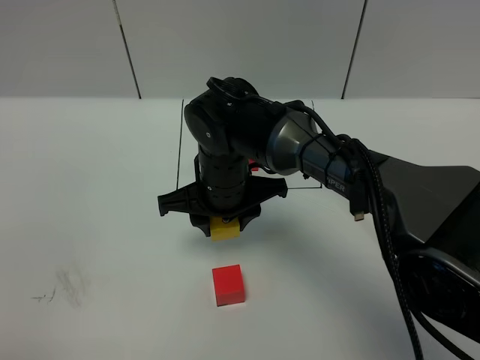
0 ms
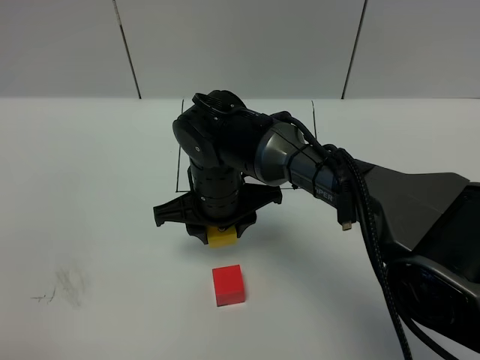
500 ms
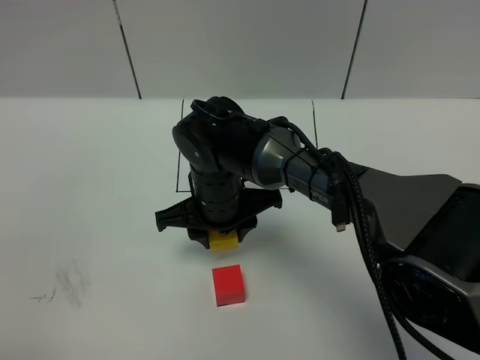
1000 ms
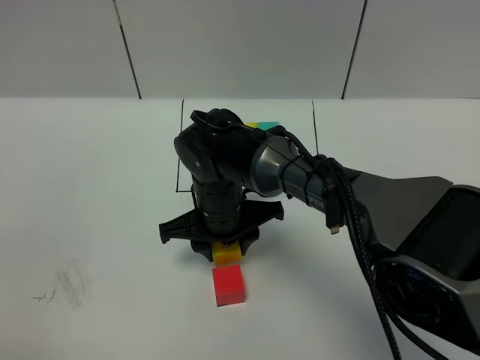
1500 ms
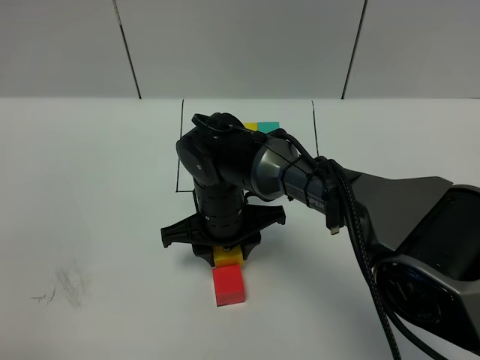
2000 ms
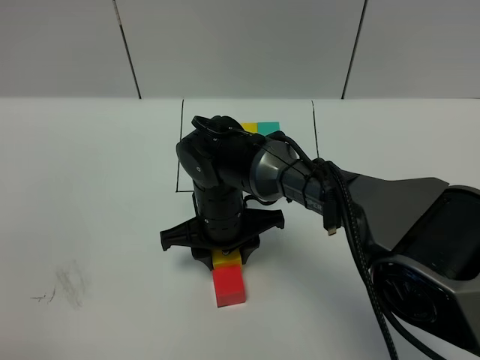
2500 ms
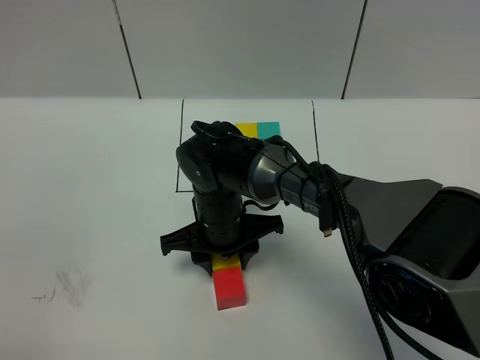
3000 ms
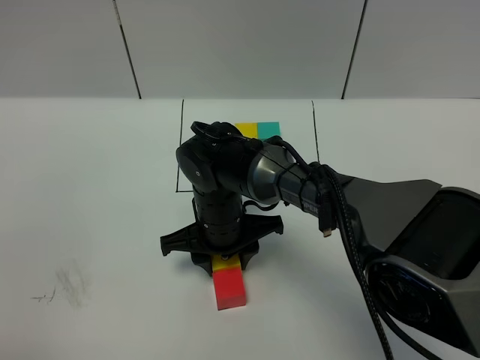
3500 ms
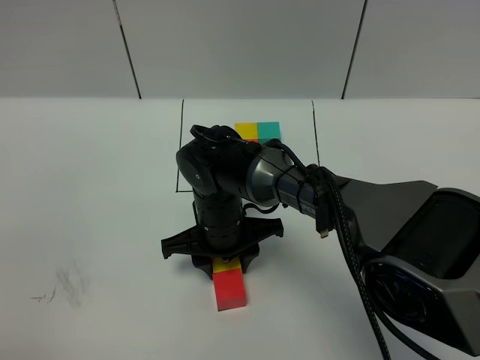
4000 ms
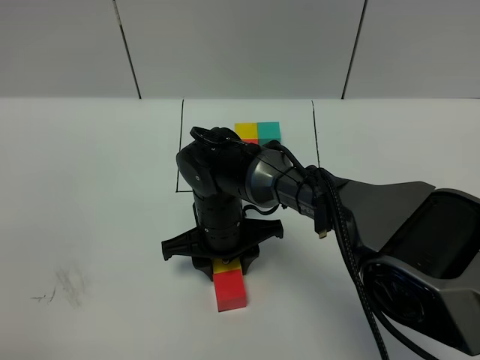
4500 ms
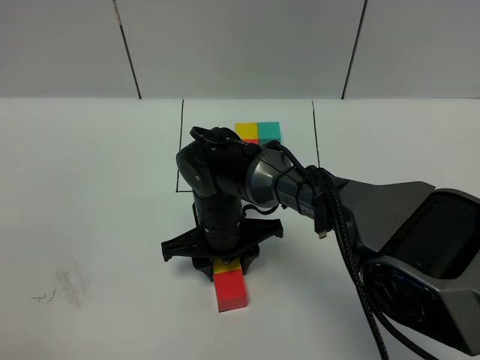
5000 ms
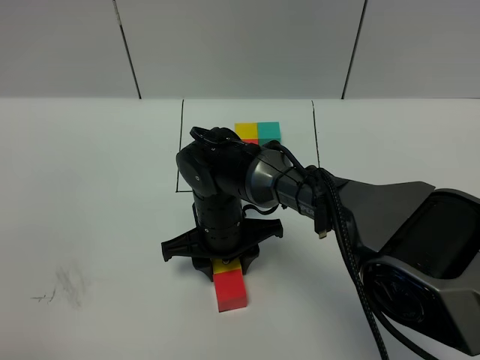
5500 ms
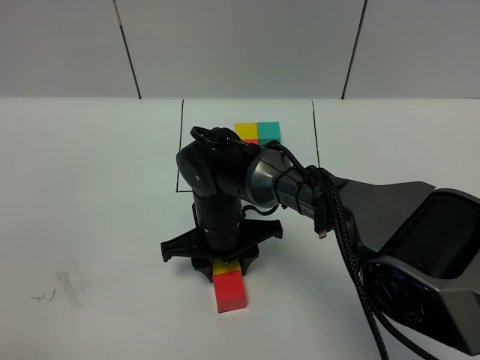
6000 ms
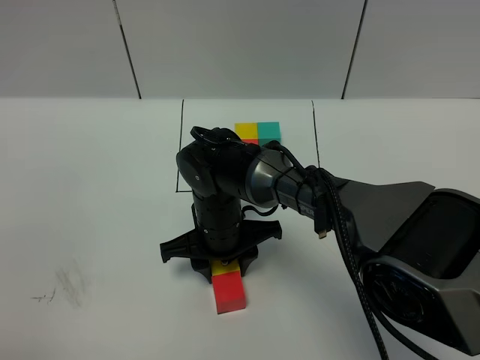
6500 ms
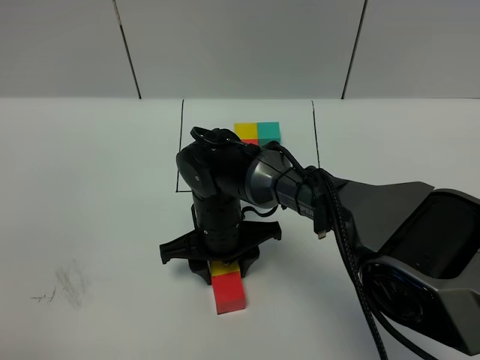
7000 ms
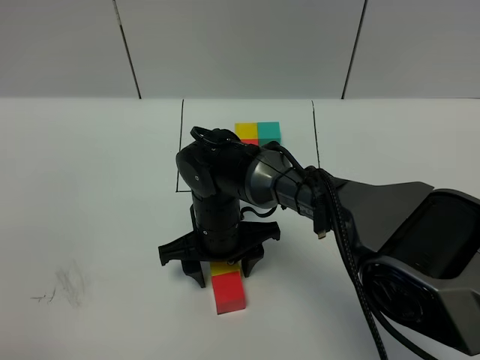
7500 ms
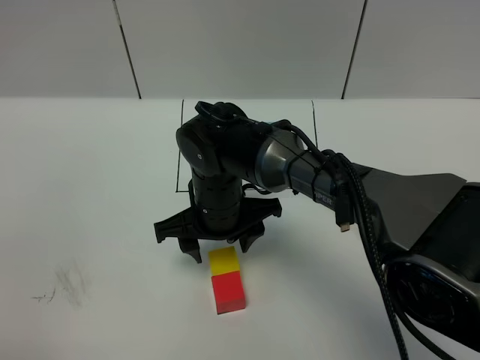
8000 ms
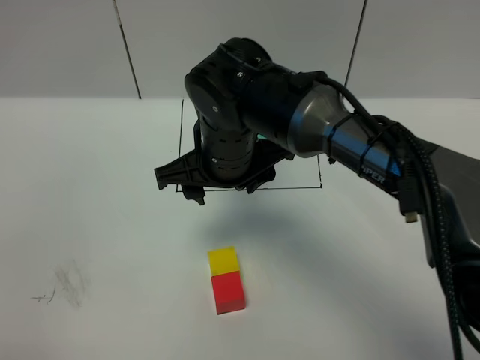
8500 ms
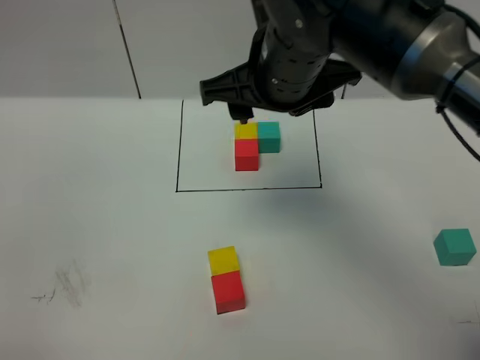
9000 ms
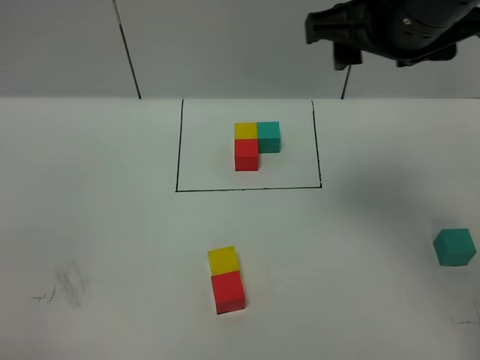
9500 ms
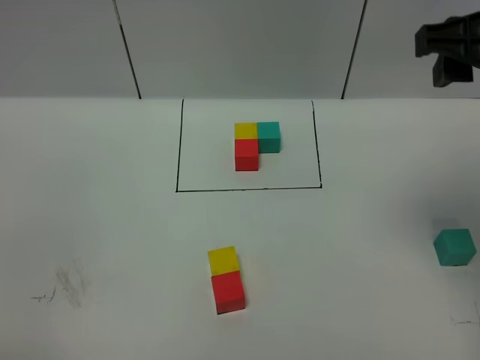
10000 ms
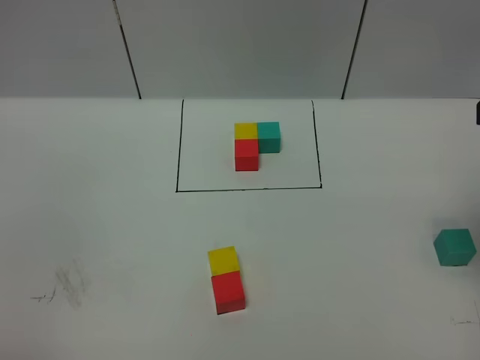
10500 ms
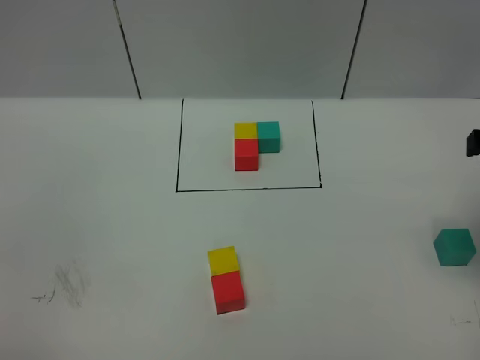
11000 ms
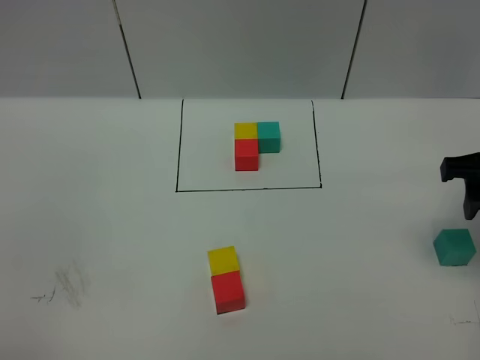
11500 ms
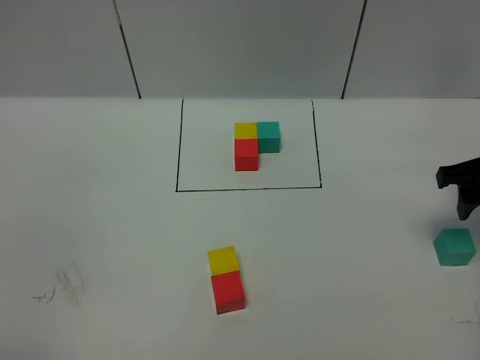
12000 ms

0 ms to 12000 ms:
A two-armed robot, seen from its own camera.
Task of the whole recording: According to the building block template in front, assemble the scattered blocks together.
Step, 0 ms to 7500 ms: Put the yellow cube on the behind of the red cube.
0 ms to 2000 ms: The grippers make only small movements.
2000 ms to 4000 ms: The grippers move only a little.
4000 ms to 6000 ms: Both grippers stay about where they are.
6000 ms to 8000 ms: The grippers stay close to where they were, moving slightly.
8000 ms to 10000 ms: The right gripper goes roughly 35 cm to the right and upward.
10000 ms to 12000 ms: The right gripper travels downward and to the right by about 20 cm.

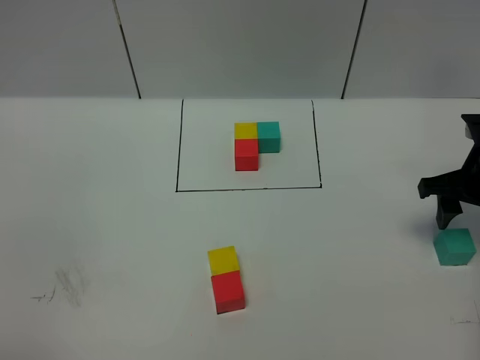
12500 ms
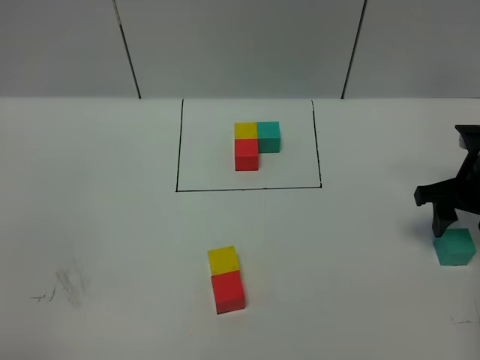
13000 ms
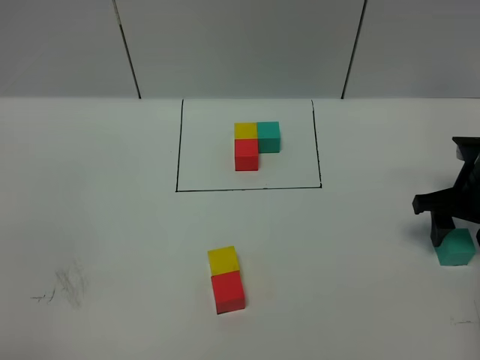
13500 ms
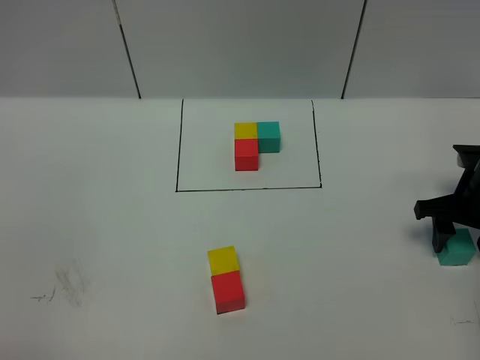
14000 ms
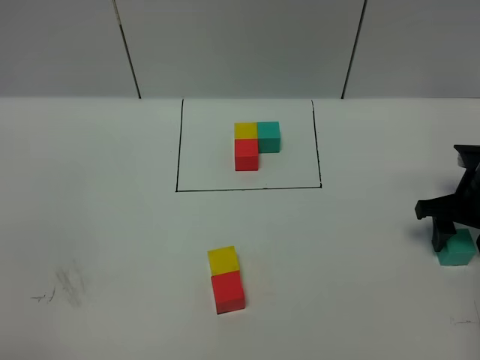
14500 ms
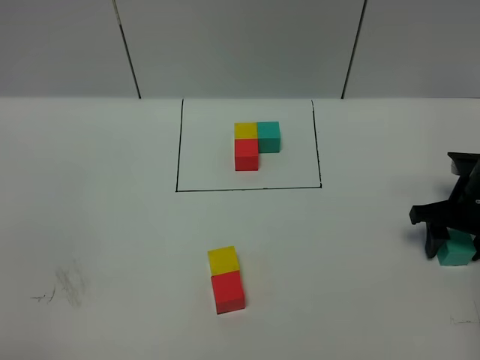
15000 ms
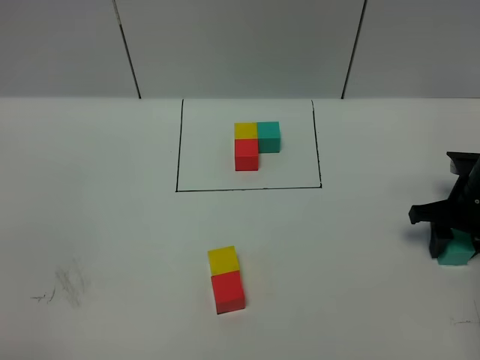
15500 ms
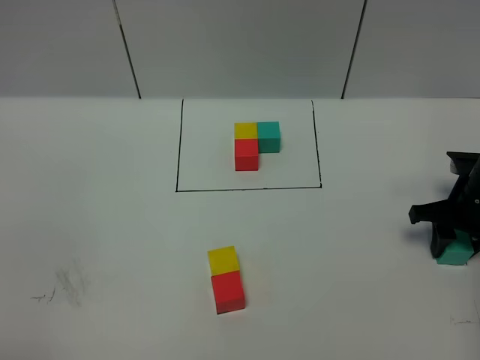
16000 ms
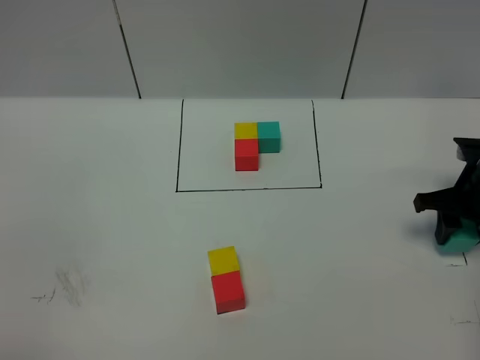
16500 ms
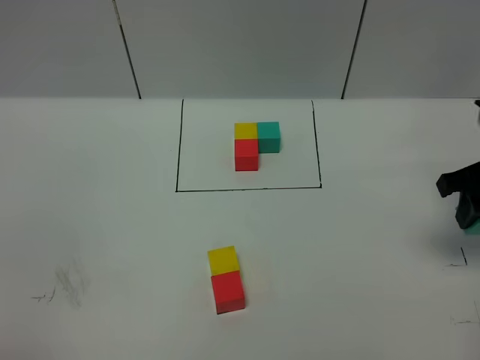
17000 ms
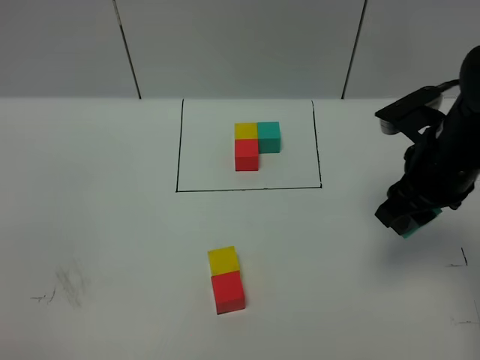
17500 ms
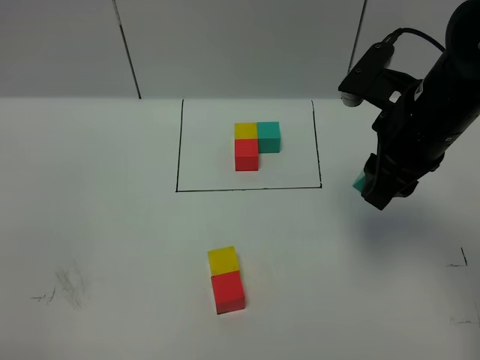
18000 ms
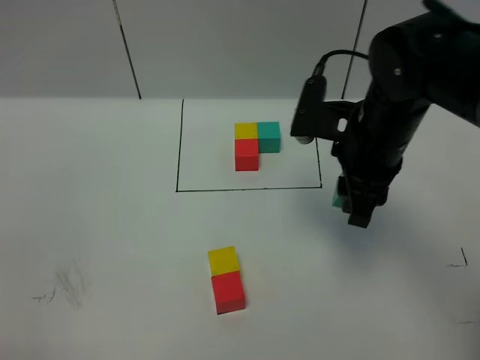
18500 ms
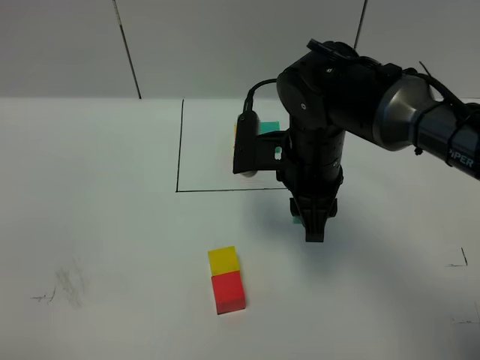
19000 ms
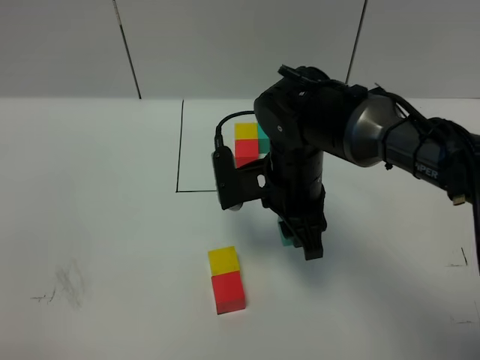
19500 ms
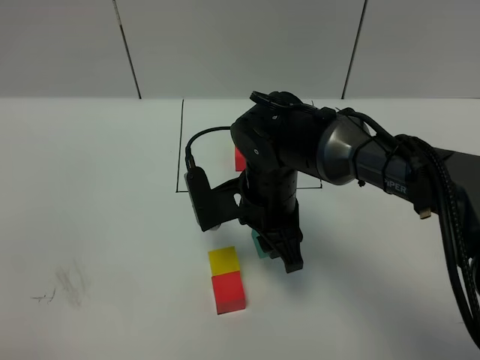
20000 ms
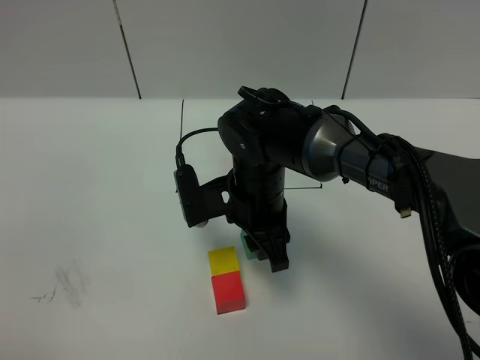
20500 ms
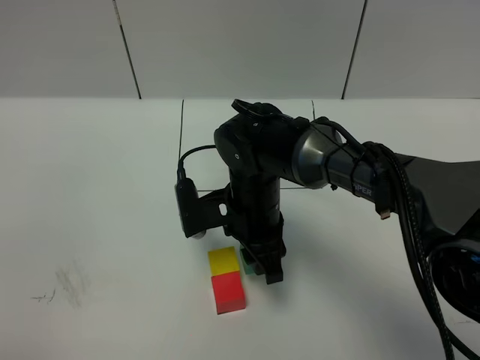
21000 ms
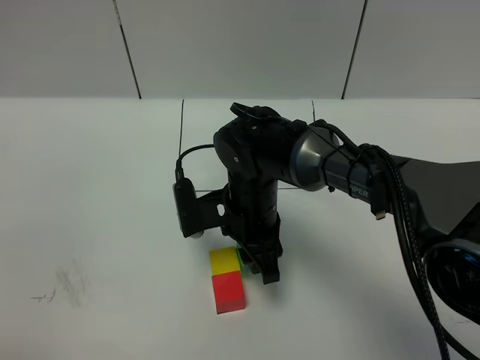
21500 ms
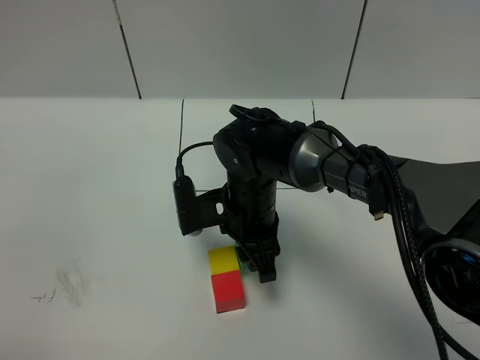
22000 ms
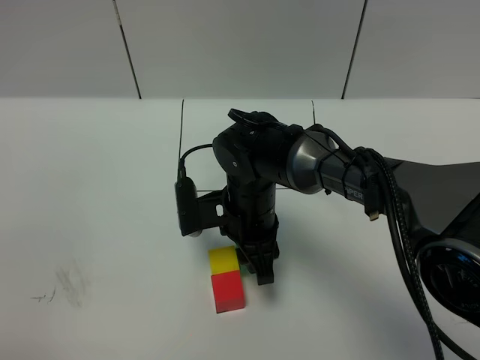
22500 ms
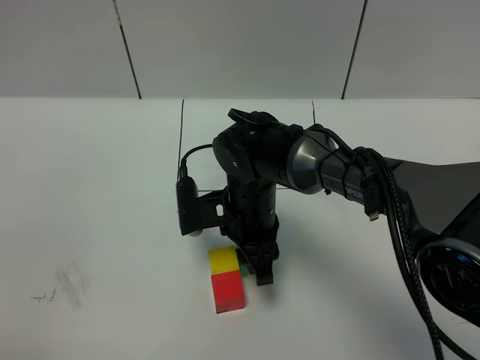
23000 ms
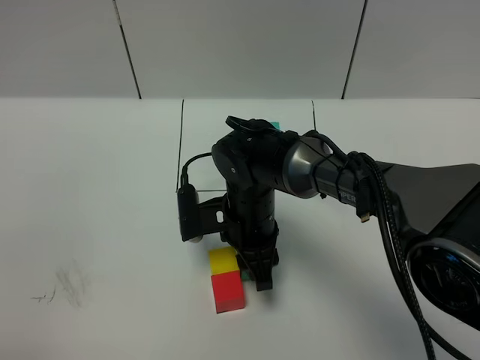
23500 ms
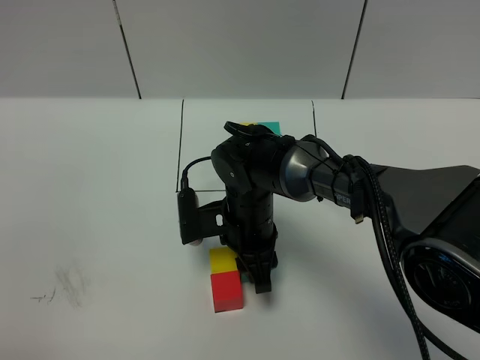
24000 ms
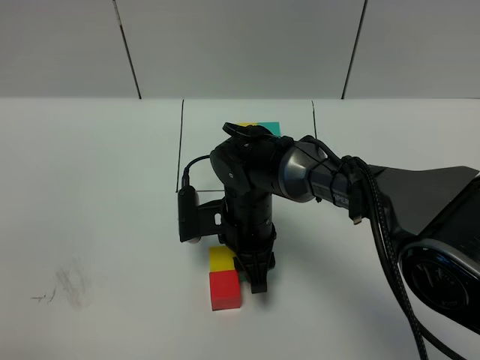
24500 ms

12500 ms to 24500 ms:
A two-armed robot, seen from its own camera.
Task of the whole recording: According to the building block template in front, assemble the scattered blocks together.
12500 ms to 14500 ms: The right gripper travels downward by about 5 cm.
14500 ms to 16500 ms: The grippers make only small movements.
16500 ms to 18500 ms: The right gripper is displaced to the left and upward by about 20 cm.
18500 ms to 20500 ms: The right gripper heads to the left and downward, covering about 15 cm.
20500 ms to 22500 ms: The grippers make only small movements.
22500 ms to 24500 ms: The grippers move only a little.

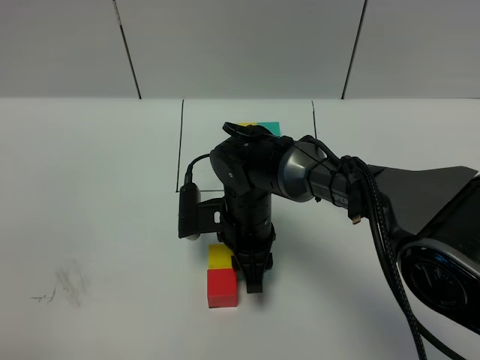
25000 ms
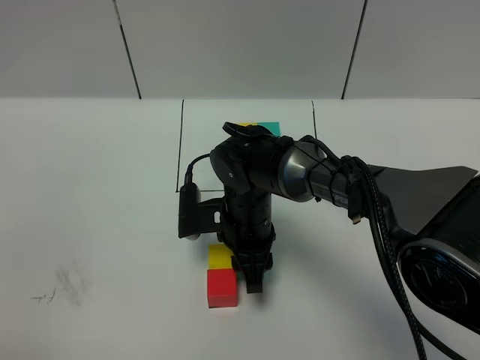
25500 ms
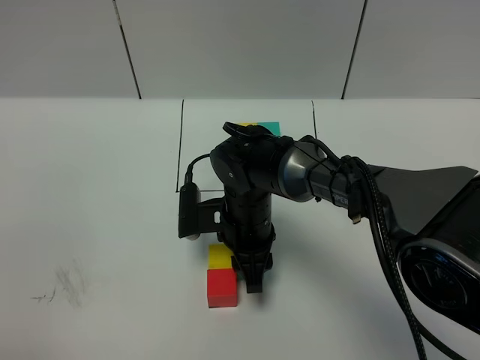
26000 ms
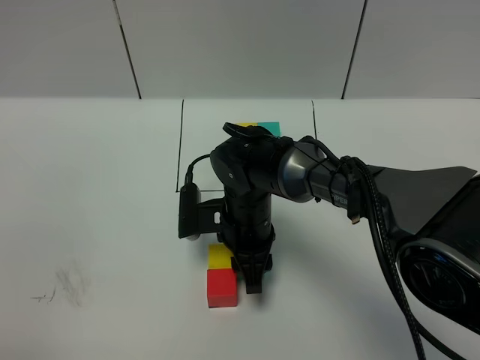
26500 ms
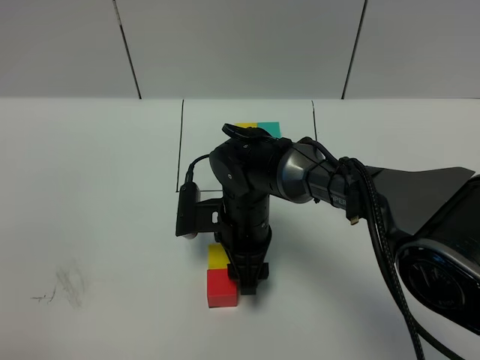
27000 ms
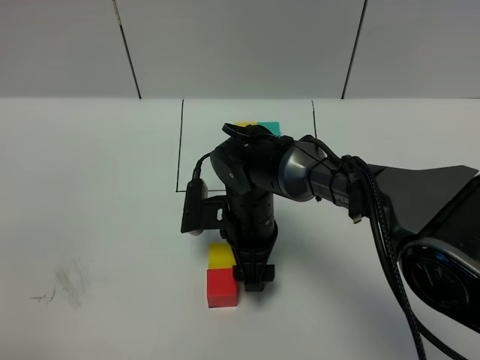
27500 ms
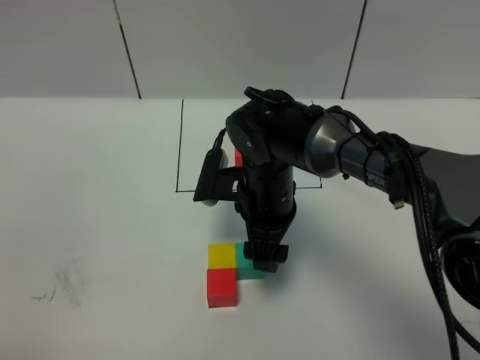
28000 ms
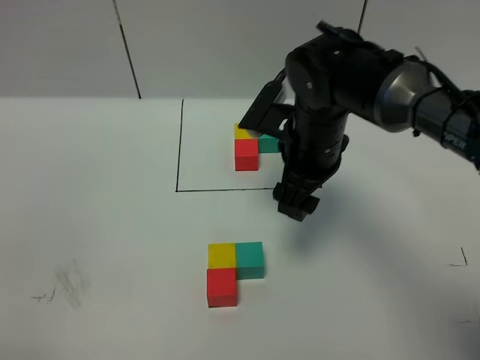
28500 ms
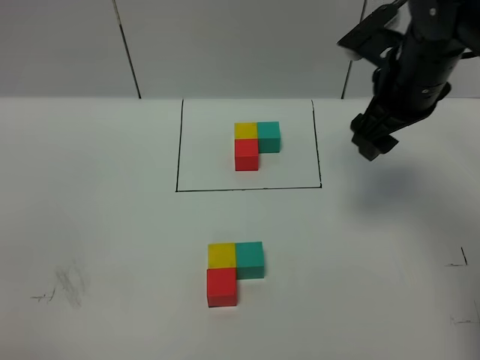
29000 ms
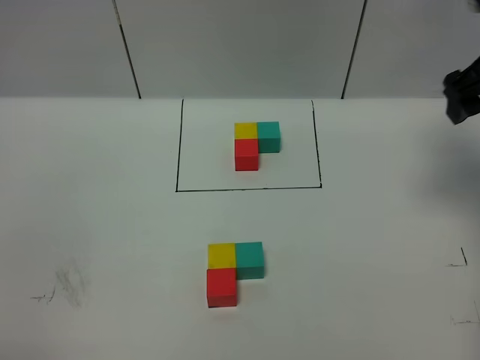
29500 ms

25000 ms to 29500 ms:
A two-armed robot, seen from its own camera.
Task of the whole recording: According to the building block template in front, assemble the scattered blocks together.
Step, 25000 ms to 27500 ms: Put the green cube on the right of the yellow cube.
25000 ms to 27000 ms: The two grippers keep their place.
27000 ms to 29500 ms: The right gripper goes roughly 40 cm to the right and upward.
